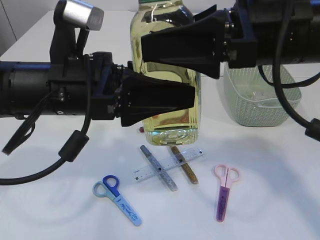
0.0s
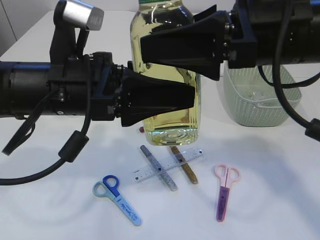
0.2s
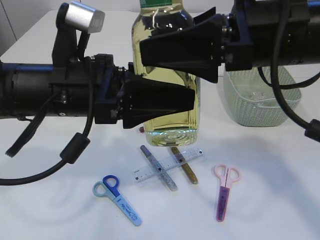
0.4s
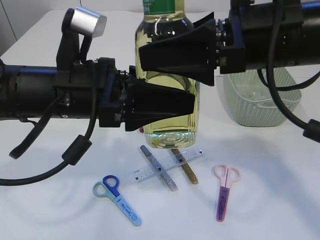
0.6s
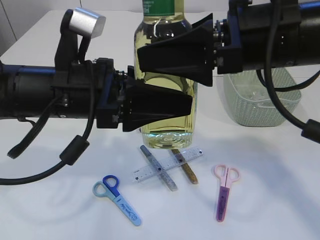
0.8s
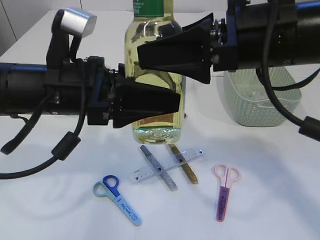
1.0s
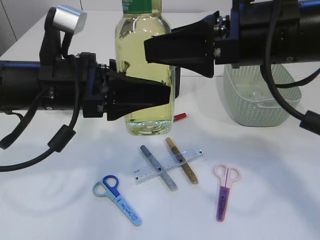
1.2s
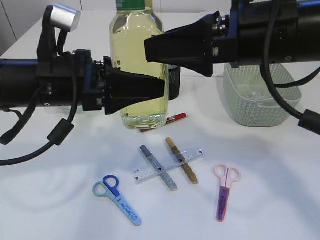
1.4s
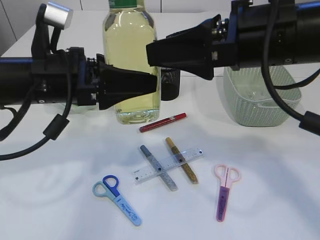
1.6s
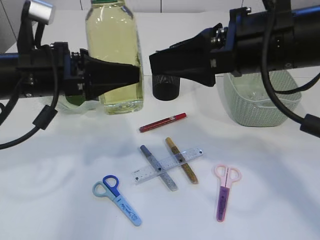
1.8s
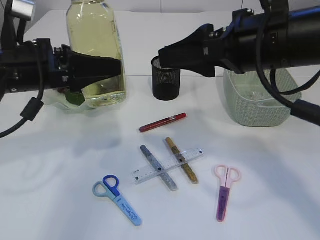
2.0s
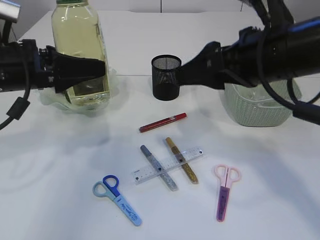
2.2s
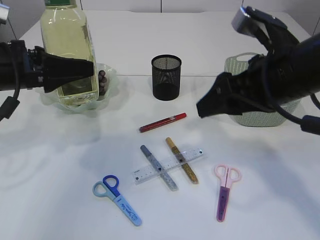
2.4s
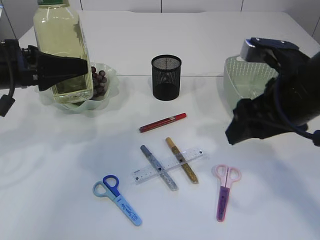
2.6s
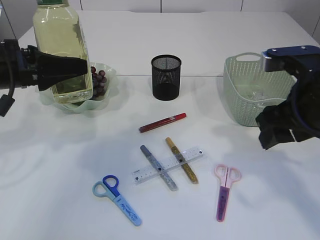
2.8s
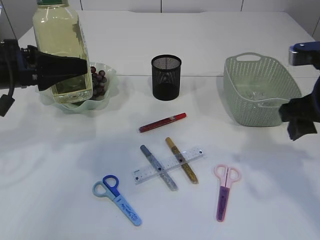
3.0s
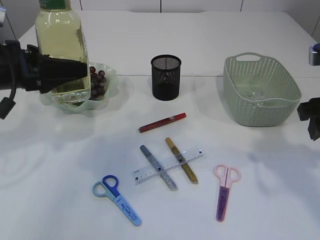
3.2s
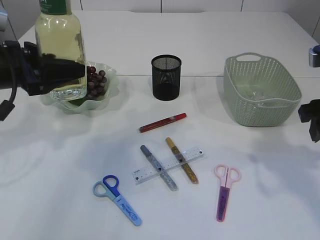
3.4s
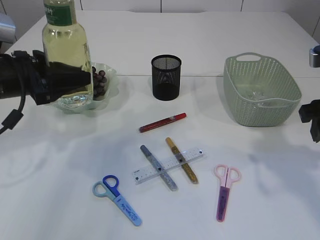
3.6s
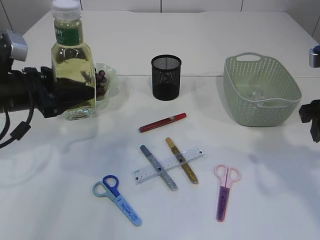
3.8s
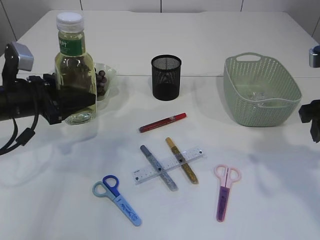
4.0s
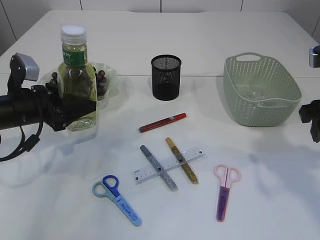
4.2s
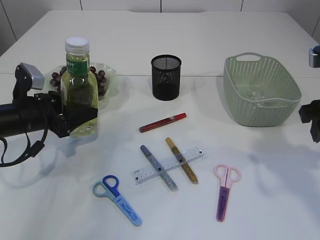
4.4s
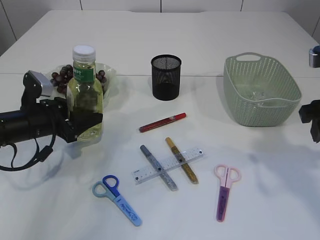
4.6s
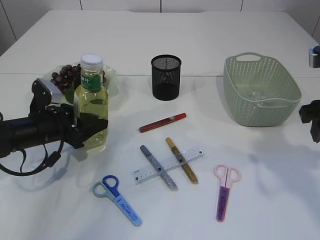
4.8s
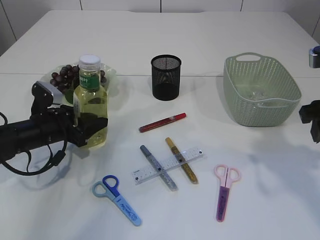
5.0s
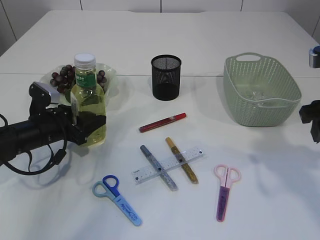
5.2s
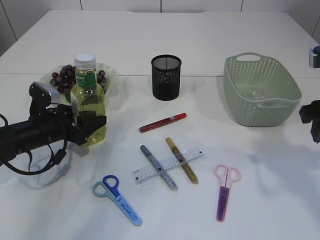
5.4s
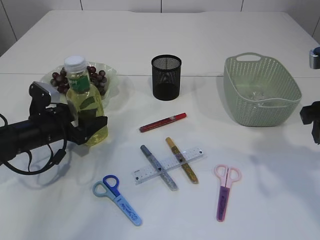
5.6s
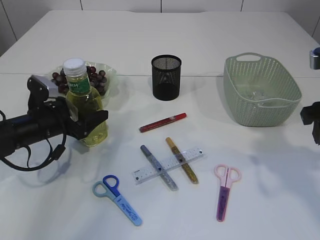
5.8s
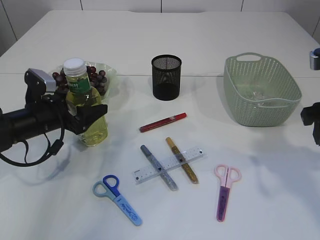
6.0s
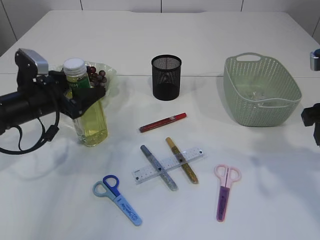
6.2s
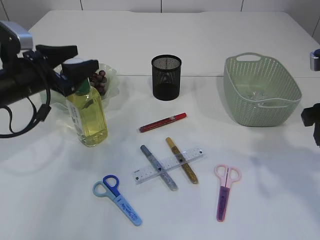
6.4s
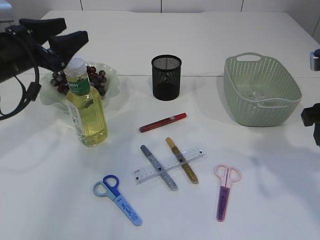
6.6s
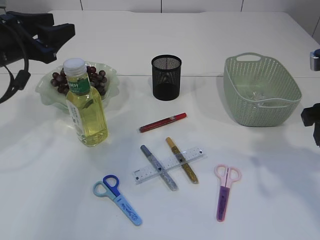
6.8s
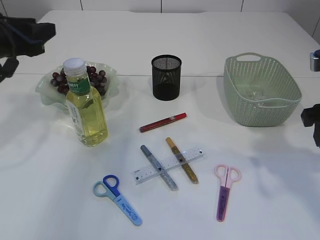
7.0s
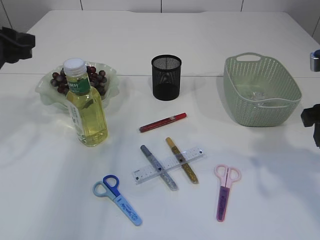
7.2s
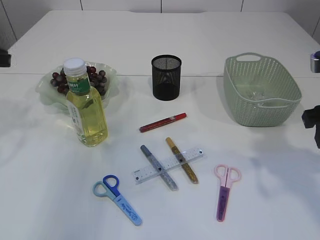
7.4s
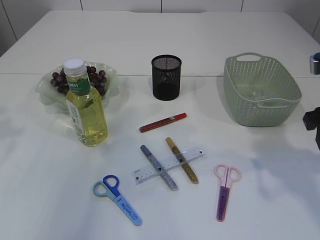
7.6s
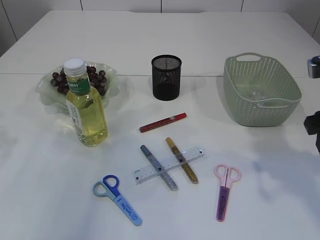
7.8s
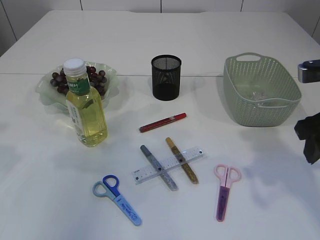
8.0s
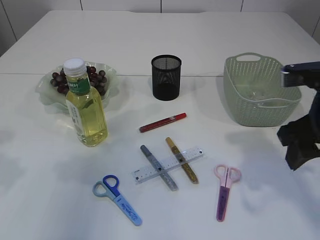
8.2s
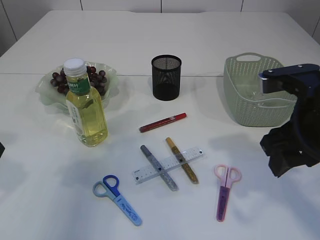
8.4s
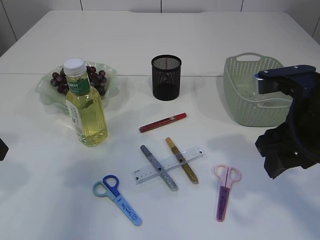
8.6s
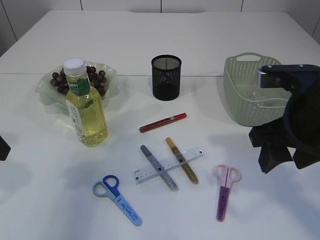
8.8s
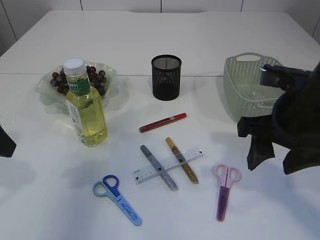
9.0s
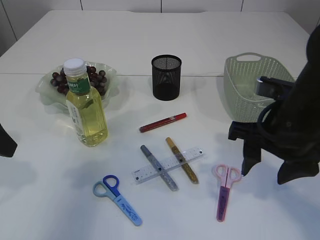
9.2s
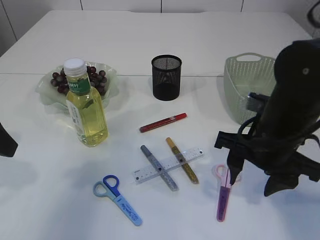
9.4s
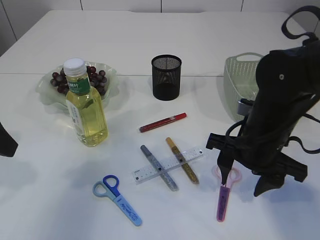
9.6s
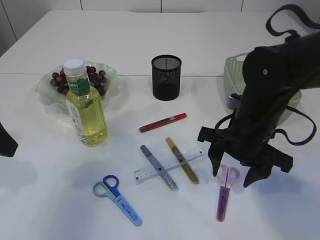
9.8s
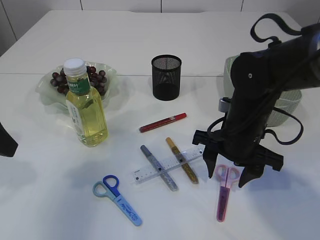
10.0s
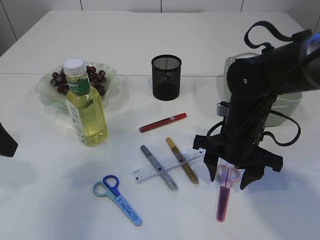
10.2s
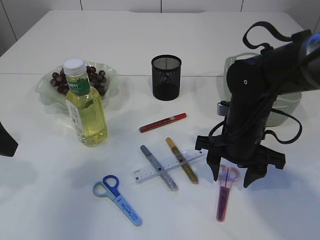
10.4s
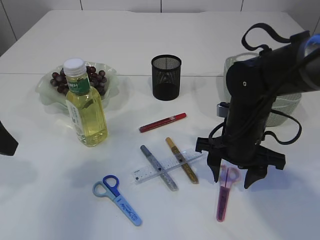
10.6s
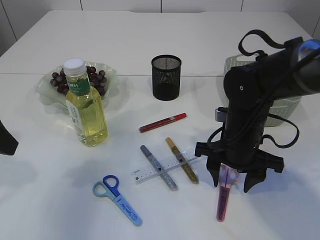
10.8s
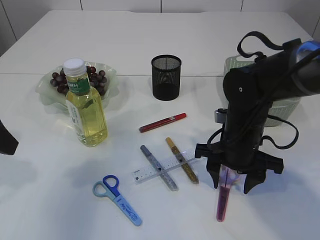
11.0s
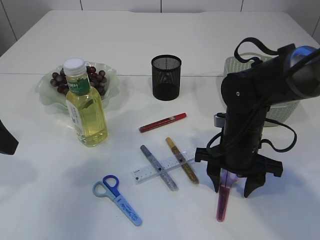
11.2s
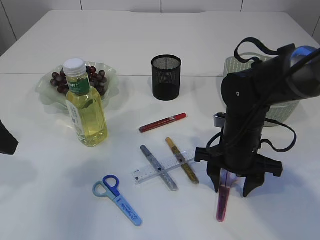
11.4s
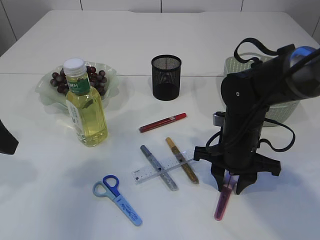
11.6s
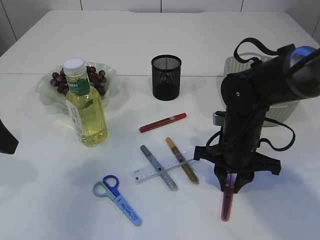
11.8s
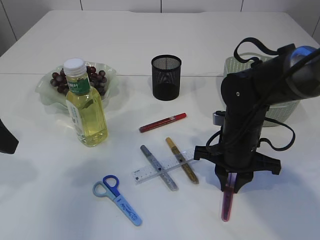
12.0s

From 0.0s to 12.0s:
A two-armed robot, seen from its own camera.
Step, from 2.0s to 6.8s: Place the bottle.
From 0.0s to 1.6s: The left gripper changes place by about 5 cm.
From 1.6s to 3.0s: The right gripper travels to the right and downward by some 15 cm; the left gripper heads to the left, covering roughly 10 cm.
From 3.0s to 4.4s: The left gripper heads downward, covering about 10 cm.
From 4.4s to 6.0s: The grippers make only small movements.
From 6.0s to 7.6s: The left gripper shifts approximately 20 cm upward, and closes.
From 7.6s to 9.0s: The right gripper is displaced to the left by about 10 cm. Meanwhile the left gripper moves backward, approximately 5 cm, and opens.
From 9.0s to 10.4s: The right gripper travels downward and forward by about 15 cm.
From 10.4s to 12.0s: The right gripper closes up.

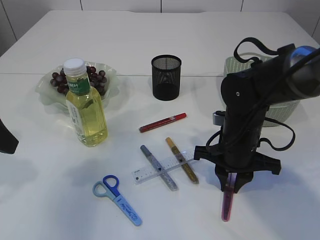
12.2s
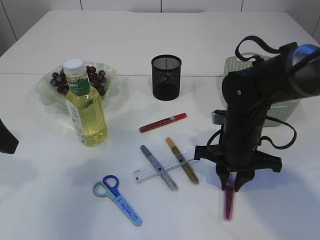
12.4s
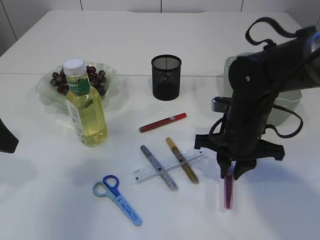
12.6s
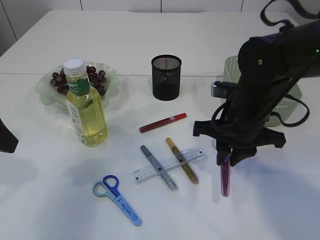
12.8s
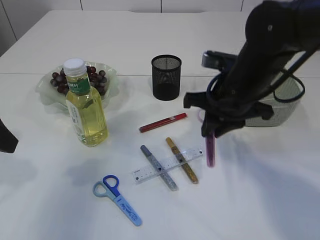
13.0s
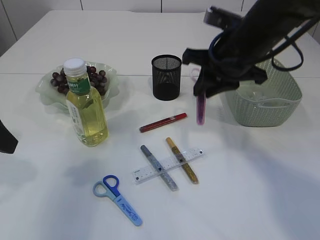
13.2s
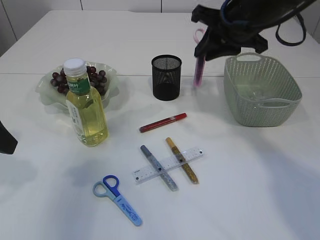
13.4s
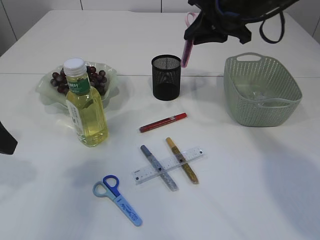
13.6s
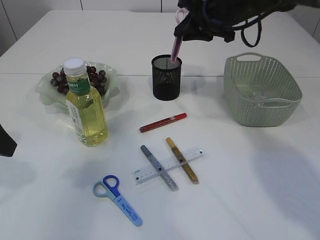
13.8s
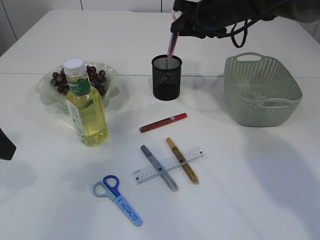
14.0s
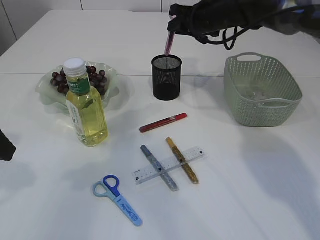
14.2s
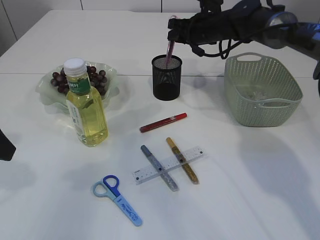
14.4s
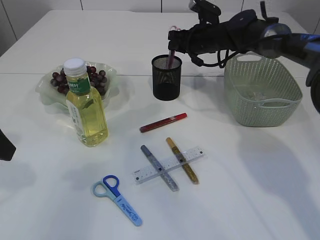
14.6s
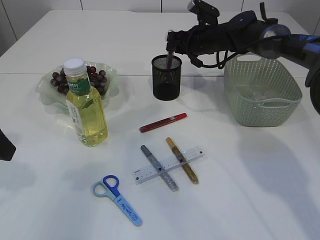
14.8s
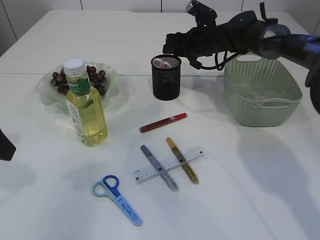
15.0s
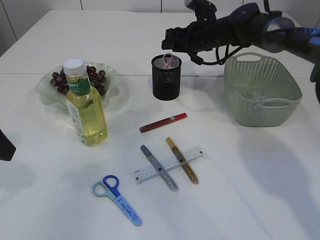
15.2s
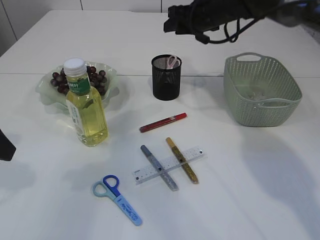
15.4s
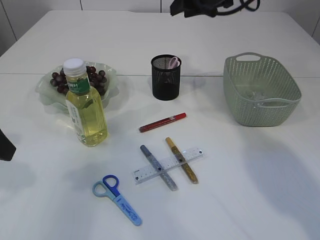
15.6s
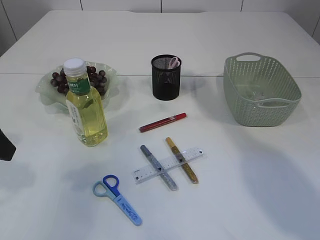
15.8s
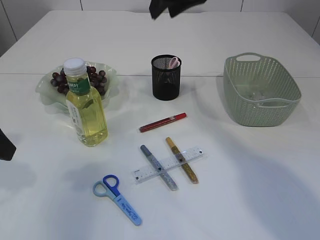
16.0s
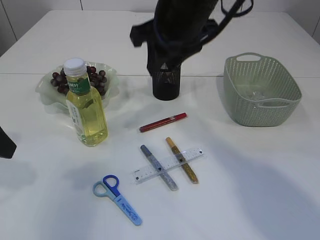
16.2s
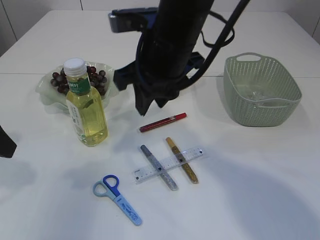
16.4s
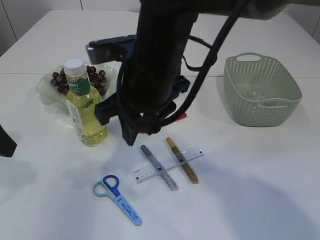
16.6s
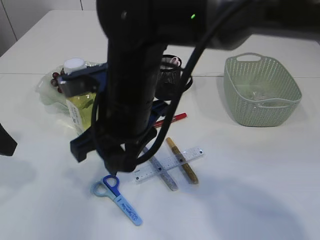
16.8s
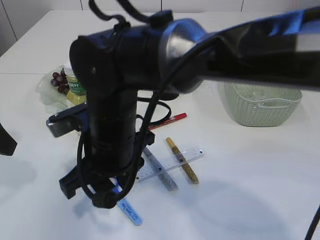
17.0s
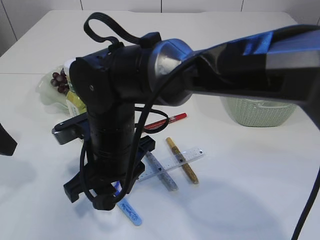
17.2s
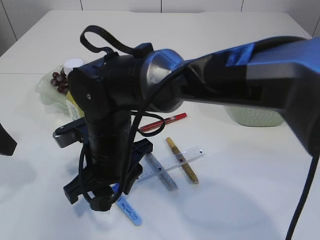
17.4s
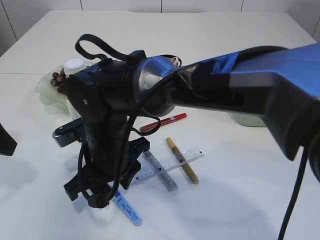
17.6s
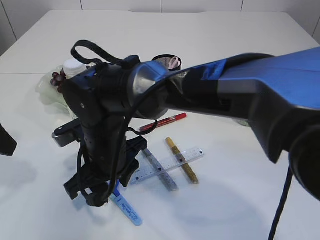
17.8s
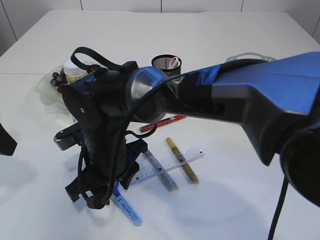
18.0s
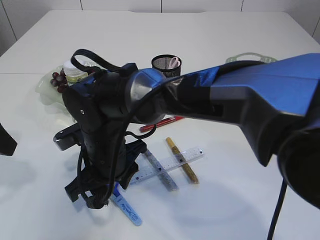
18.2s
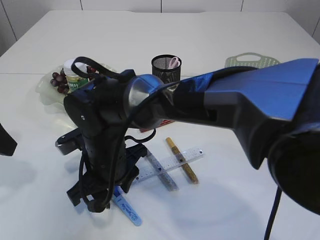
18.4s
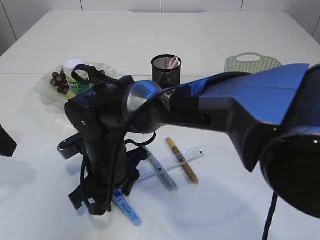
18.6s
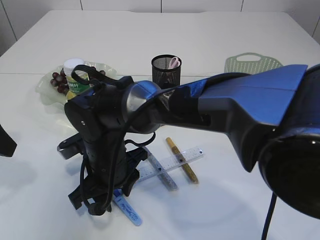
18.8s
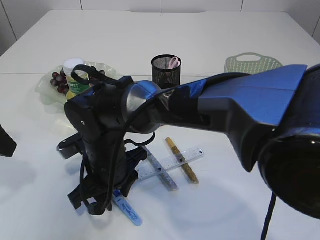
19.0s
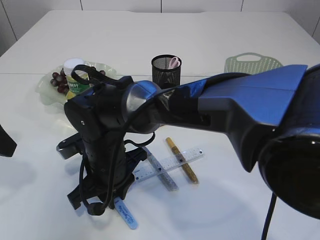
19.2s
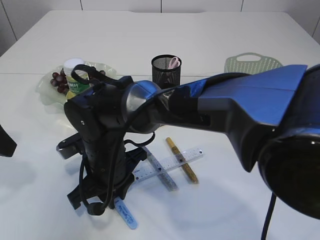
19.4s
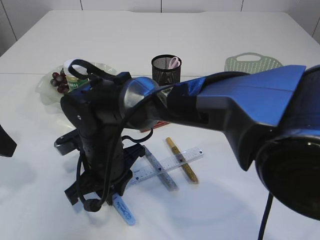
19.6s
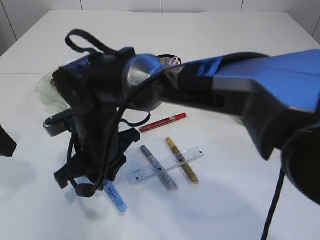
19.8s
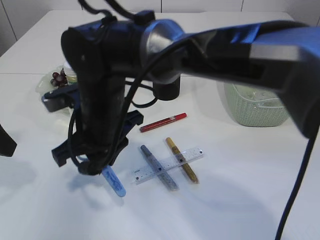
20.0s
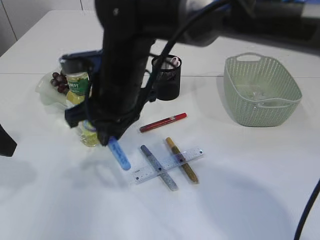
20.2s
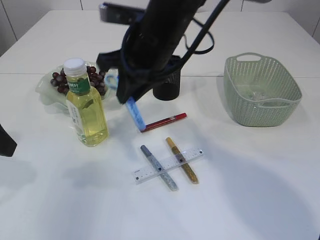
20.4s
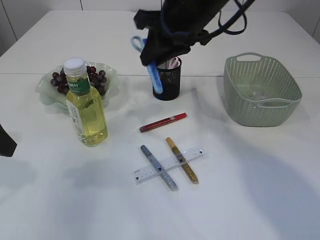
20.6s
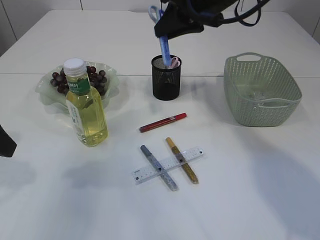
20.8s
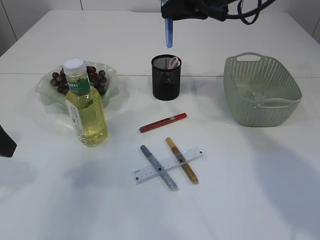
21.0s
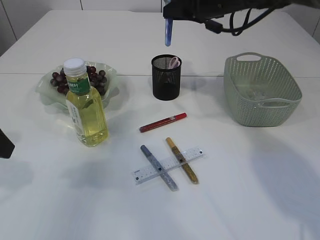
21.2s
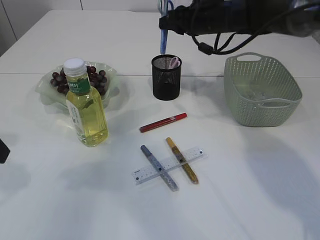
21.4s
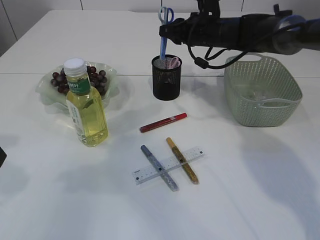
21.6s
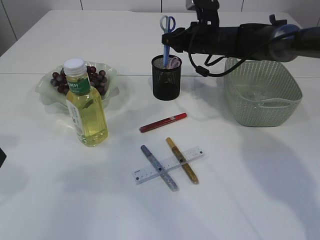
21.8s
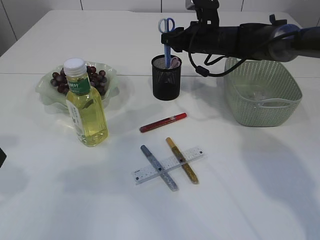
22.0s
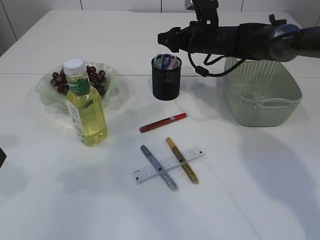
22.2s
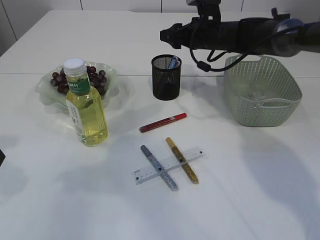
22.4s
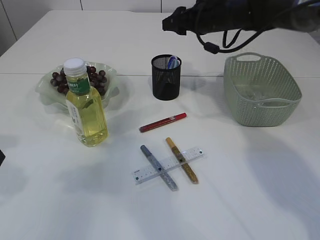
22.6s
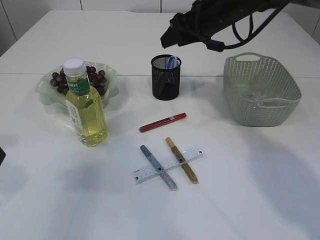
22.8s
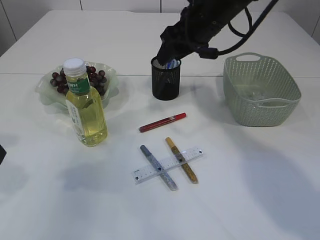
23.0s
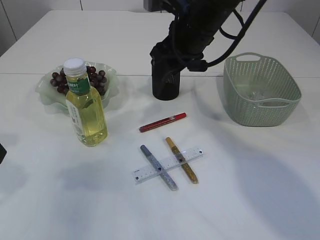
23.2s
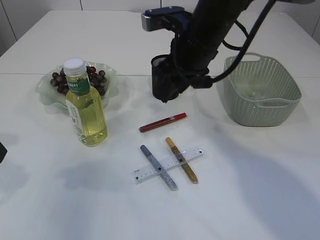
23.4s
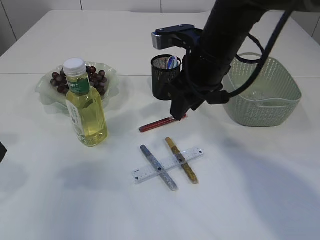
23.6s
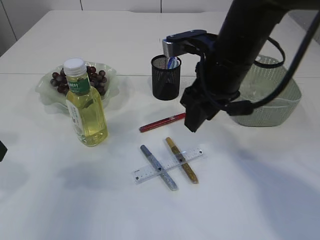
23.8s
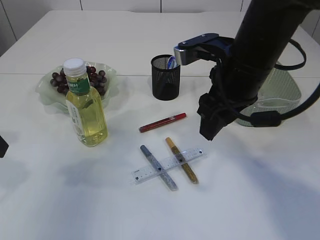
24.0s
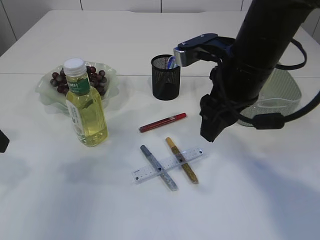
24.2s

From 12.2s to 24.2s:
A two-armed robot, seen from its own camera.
Step, from 13.0s to 15.4s: Place the pink scissors into the pen holder.
Step, from 15.6s to 20.2s: pick up the blue scissors.
Step, from 20.4s to 22.6s: Place the blue scissors into the pen holder.
From 12.2s to 13.8s: The right gripper is displaced upward and forward by about 20 cm.
From 13.8s to 15.2s: The right gripper heads downward and forward, covering about 10 cm.
From 15.2s to 16.6s: The right gripper is displaced backward and to the left by some 30 cm.
From 16.6s to 18.2s: The right gripper travels downward and to the left by roughly 15 cm.
From 18.2s to 19.8s: The grippers make only small movements.
From 19.8s to 21.2s: The right gripper heads to the right, forward and upward, covering some 30 cm.
From 21.2s to 22.6s: The right gripper opens.
From 22.6s to 24.2s: The right gripper moves backward, some 20 cm.
